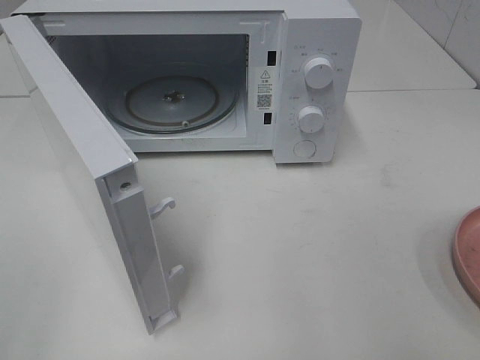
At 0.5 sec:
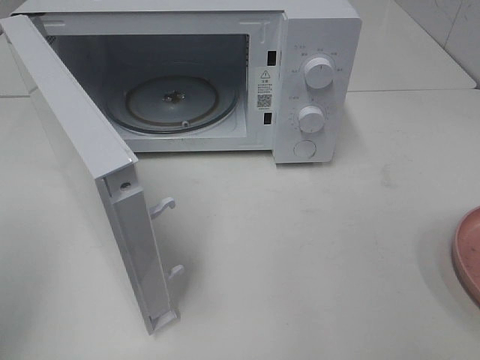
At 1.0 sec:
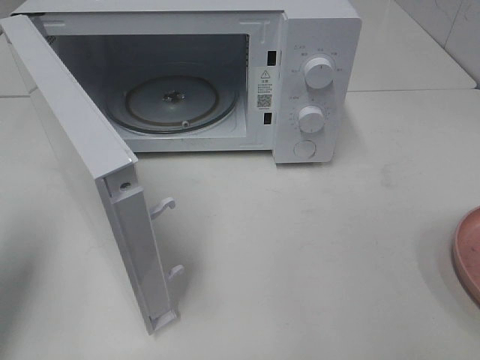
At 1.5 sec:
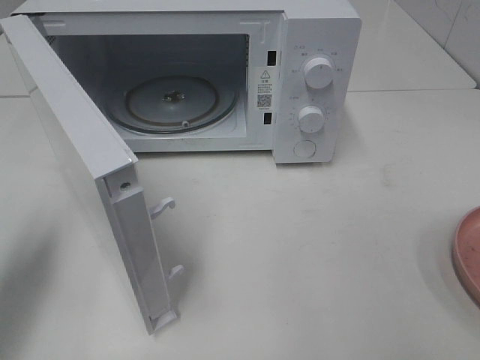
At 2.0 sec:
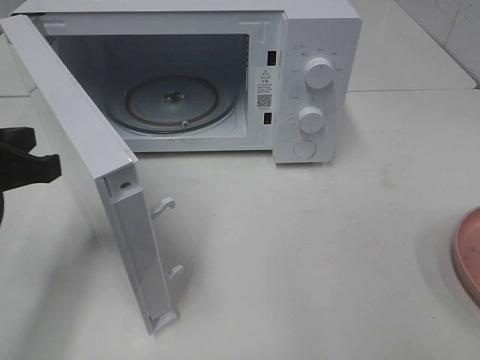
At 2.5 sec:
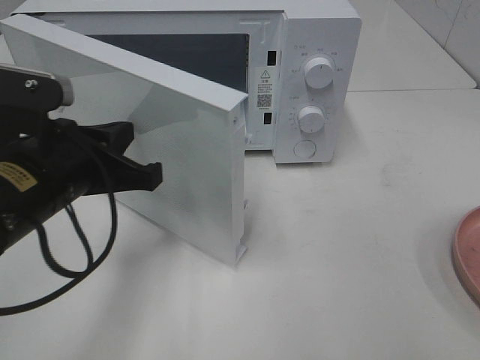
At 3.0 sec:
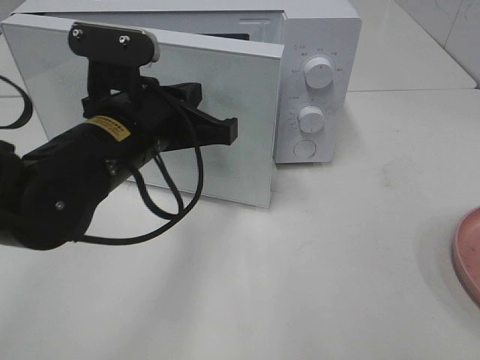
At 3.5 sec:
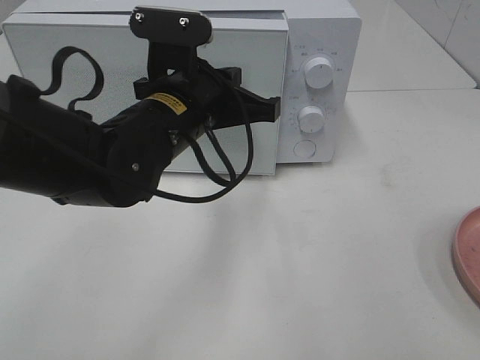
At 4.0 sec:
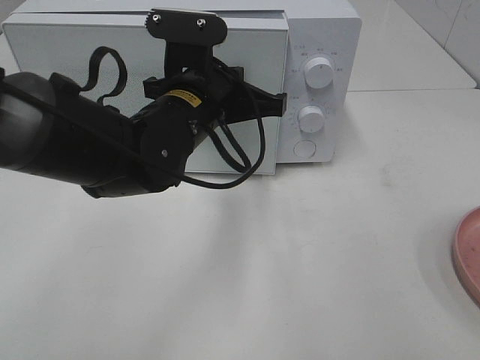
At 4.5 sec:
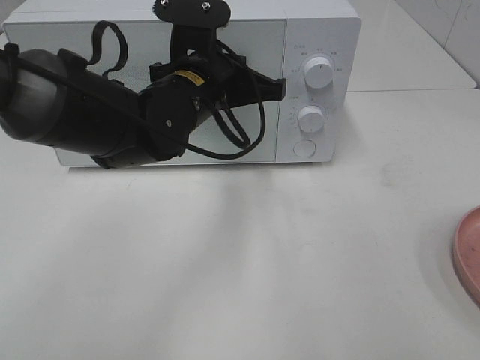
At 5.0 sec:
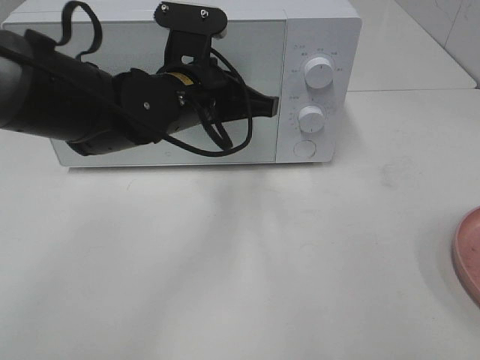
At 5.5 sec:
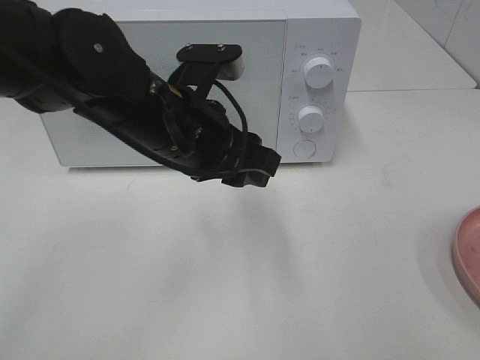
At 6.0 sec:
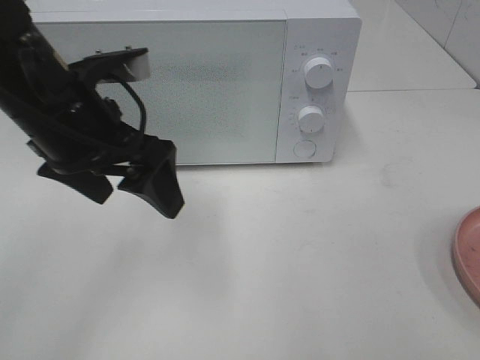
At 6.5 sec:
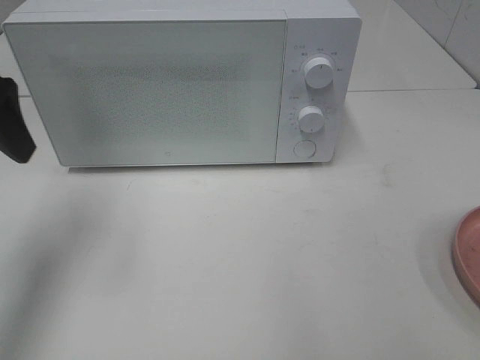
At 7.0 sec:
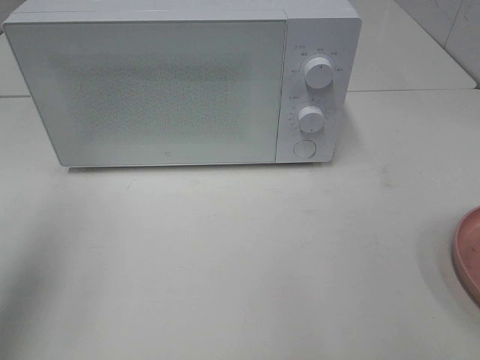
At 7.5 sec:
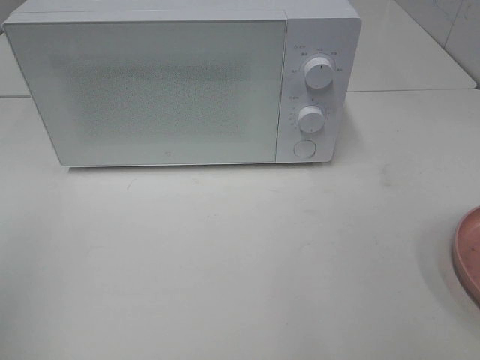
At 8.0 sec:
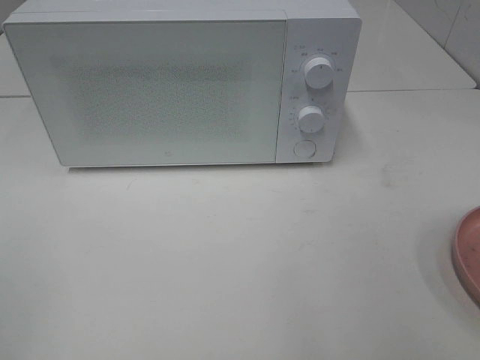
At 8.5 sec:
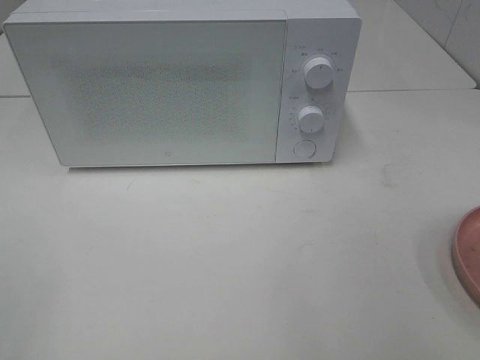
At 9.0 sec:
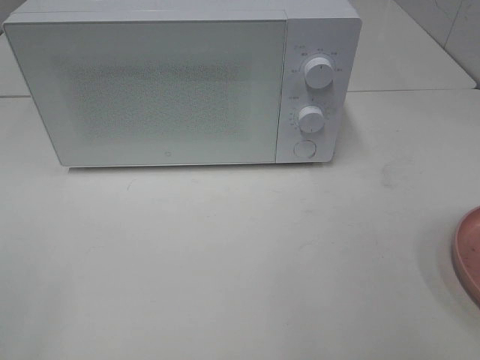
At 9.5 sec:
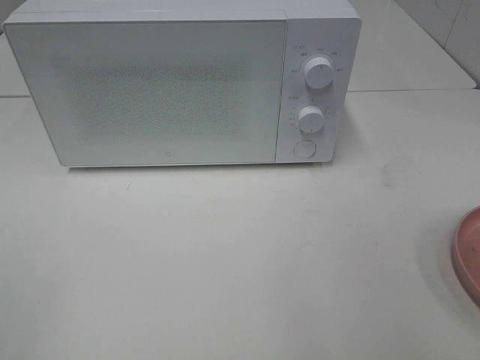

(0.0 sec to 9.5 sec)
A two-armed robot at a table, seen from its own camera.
Task of the whole recording: Heat the burger.
Step, 0.0 sec - 5.0 sec: Left hand: close the microwave door.
0.0 sec - 2.0 sec: The left gripper moves forward, downward and to the right, roughly 25 cm, and closes.
2.0 sec - 4.0 sec: The left gripper heads to the right and forward, covering approximately 20 cm.
4.0 sec - 5.5 sec: The left gripper opens up.
5.5 sec - 7.5 sec: The left gripper goes some 35 cm to the left, backward and upward, and opens.

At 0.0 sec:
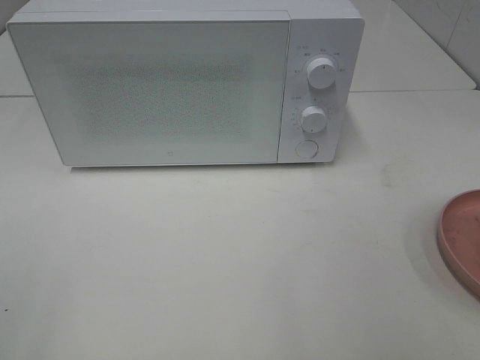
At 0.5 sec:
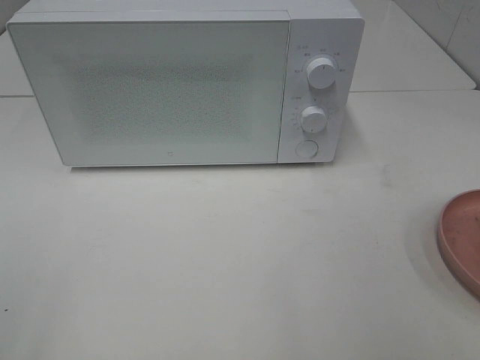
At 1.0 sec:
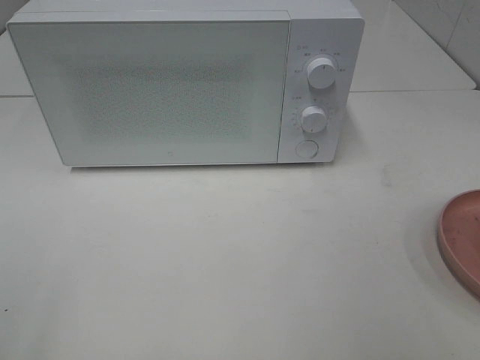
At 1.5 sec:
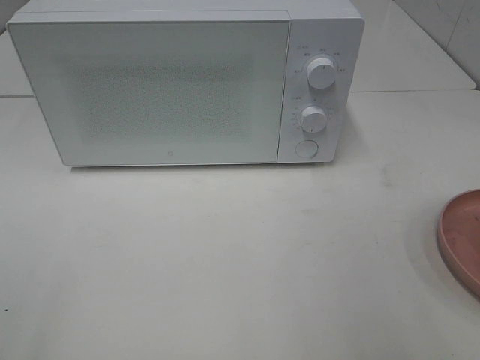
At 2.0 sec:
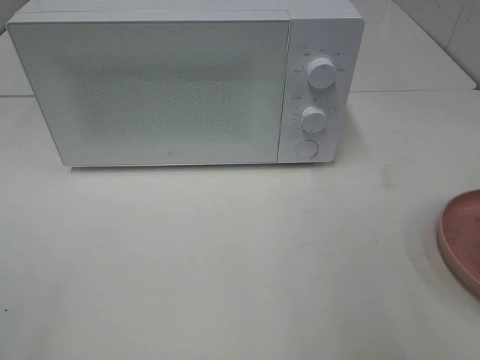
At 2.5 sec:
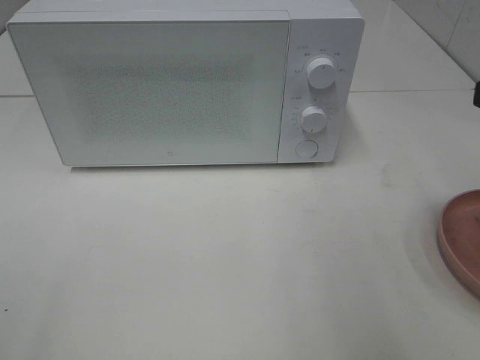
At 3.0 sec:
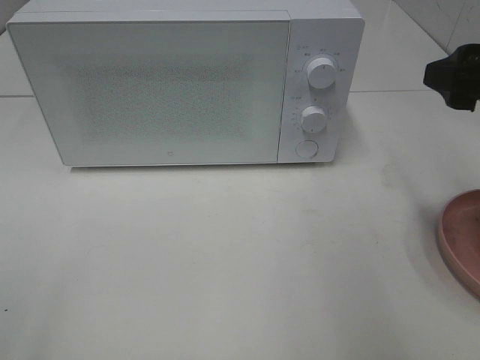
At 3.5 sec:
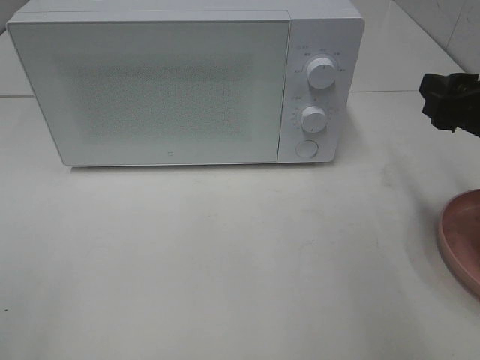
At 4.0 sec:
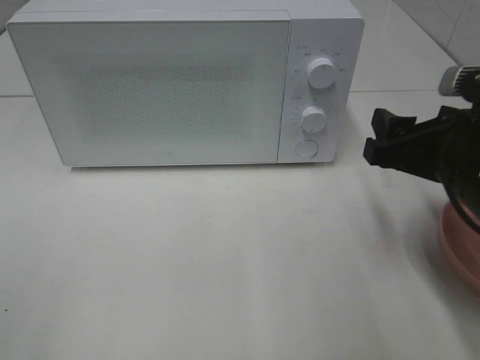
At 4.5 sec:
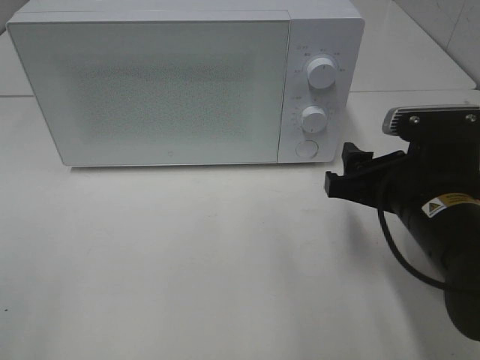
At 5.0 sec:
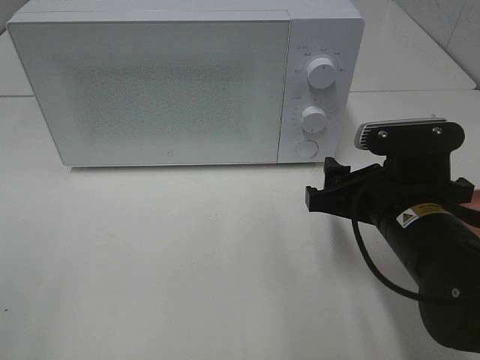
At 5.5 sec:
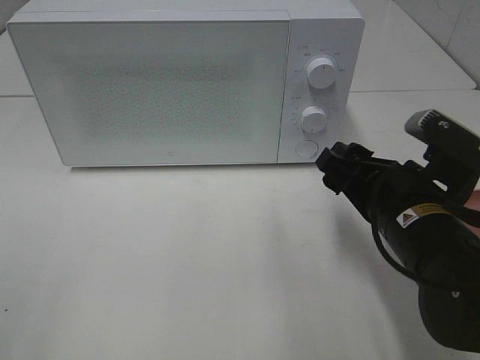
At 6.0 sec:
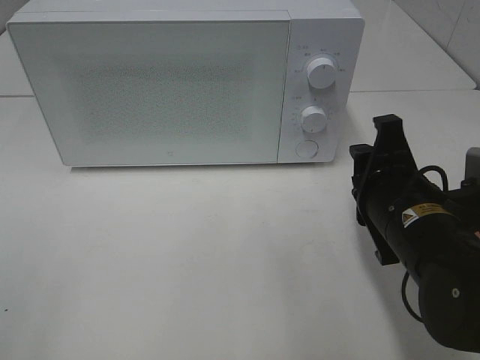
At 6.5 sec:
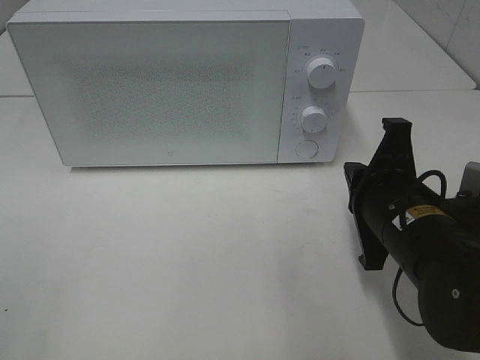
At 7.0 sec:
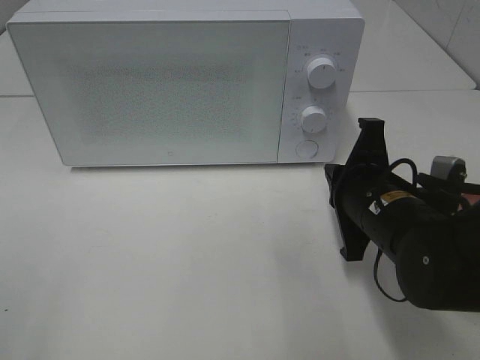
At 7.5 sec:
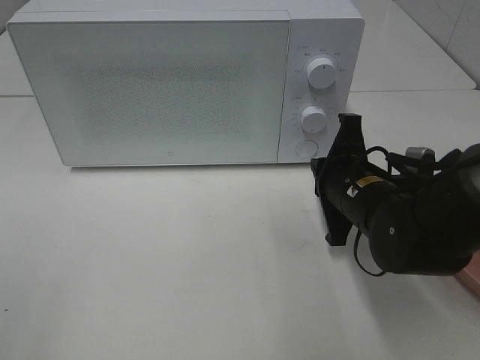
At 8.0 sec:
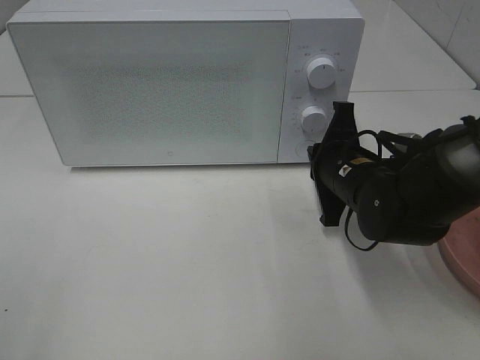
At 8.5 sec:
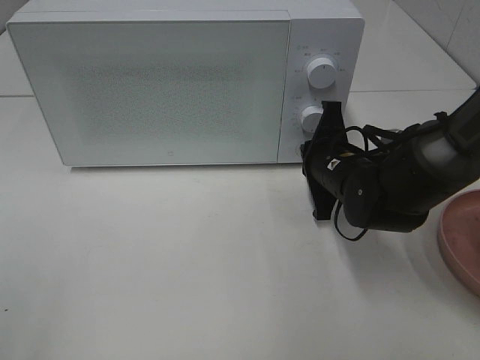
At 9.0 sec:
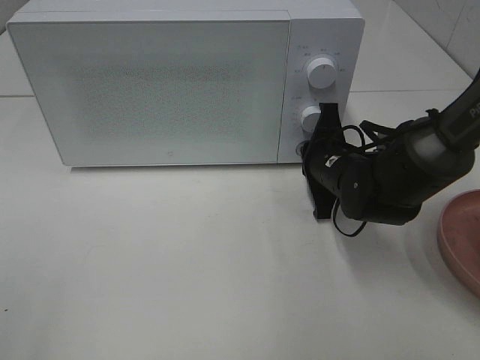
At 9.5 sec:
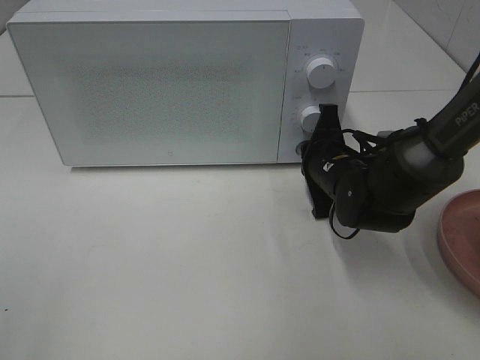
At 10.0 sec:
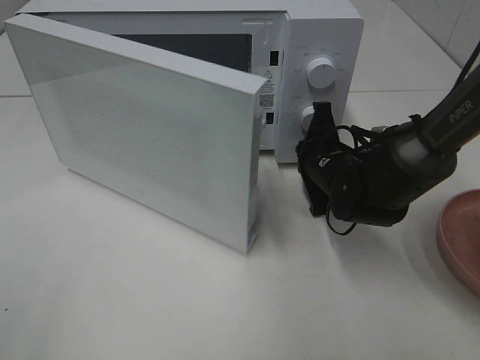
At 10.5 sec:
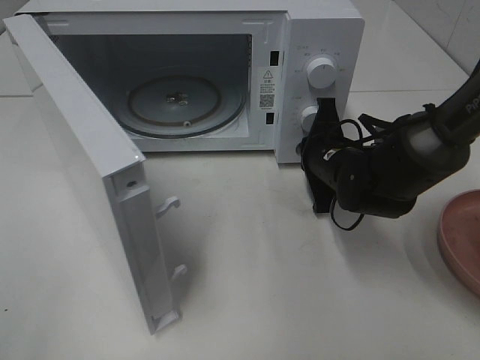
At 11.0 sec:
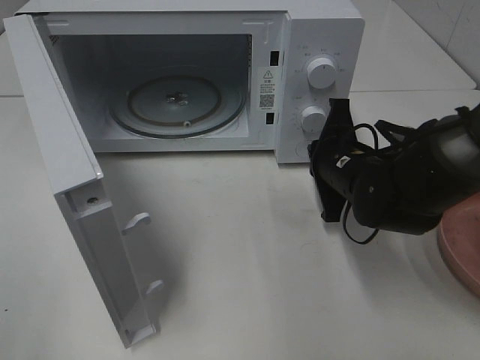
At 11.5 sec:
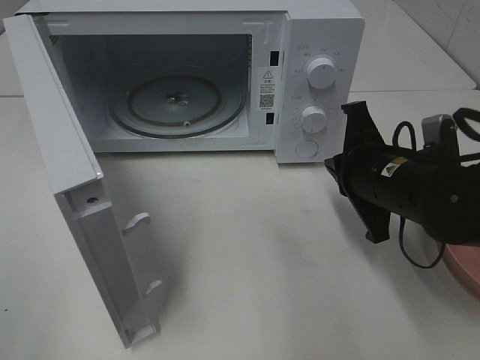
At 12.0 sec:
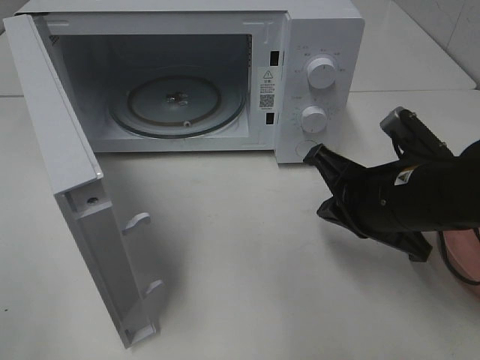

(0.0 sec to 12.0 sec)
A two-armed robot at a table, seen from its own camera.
Task of the whole recording: Heat the burger.
Step, 0.0 sec - 11.0 sec: Right hand: press the switch.
2.0 sec - 4.0 sec: The right gripper is displaced downward, forward and to the left by about 15 cm.
4.0 sec - 6.0 sec: The right gripper moves to the left, about 5 cm, and closes.
6.0 sec - 8.0 sec: The right gripper goes some 10 cm forward, and closes up.
8.0 sec - 10.0 sec: The right gripper shifts by some 5 cm.
10.0 sec - 12.0 sec: The right gripper is displaced backward and upward by roughly 15 cm.

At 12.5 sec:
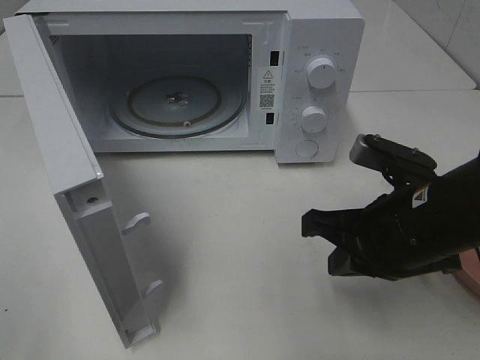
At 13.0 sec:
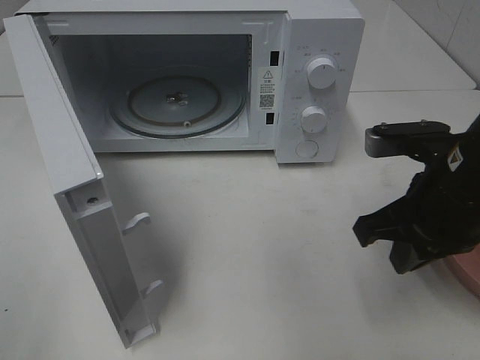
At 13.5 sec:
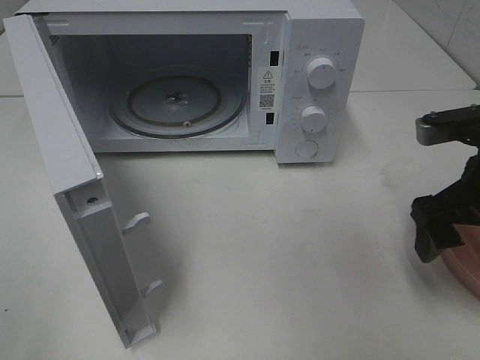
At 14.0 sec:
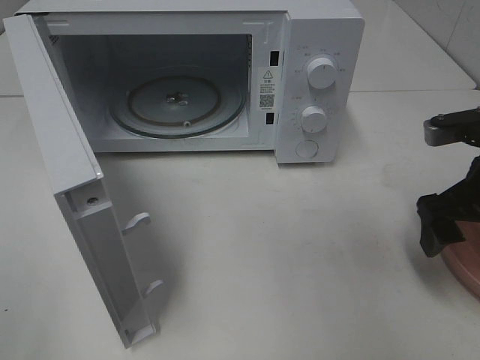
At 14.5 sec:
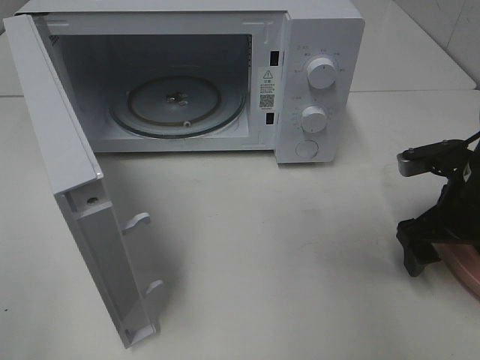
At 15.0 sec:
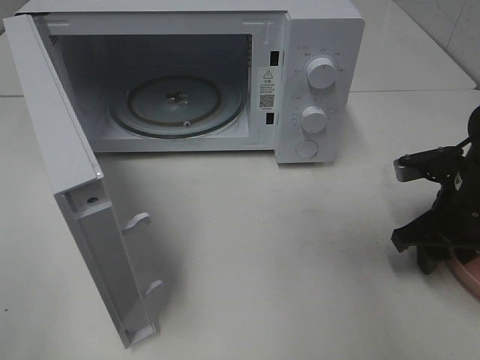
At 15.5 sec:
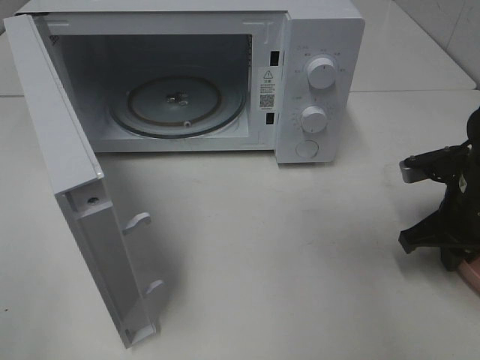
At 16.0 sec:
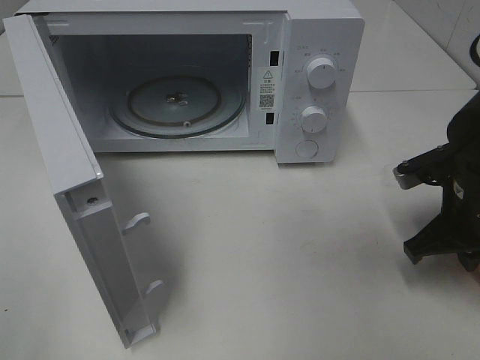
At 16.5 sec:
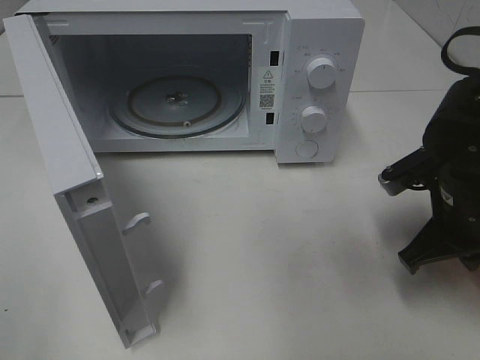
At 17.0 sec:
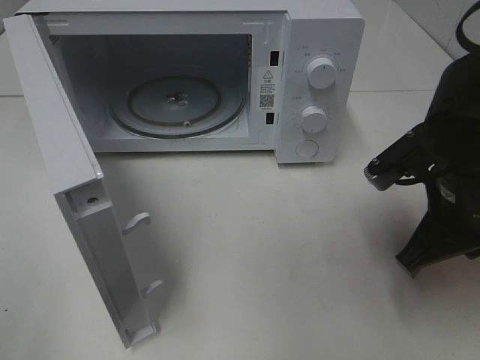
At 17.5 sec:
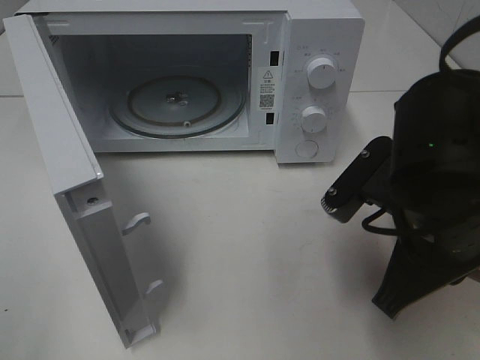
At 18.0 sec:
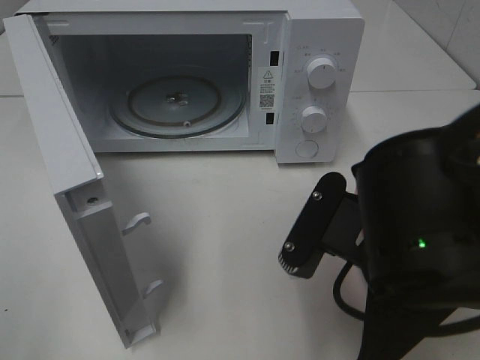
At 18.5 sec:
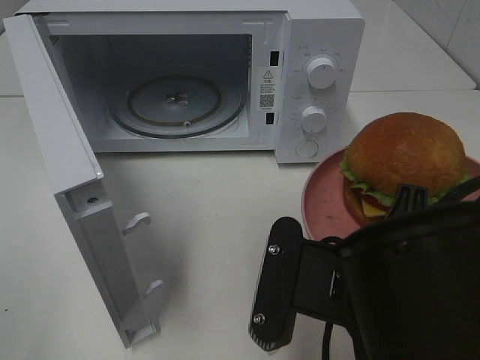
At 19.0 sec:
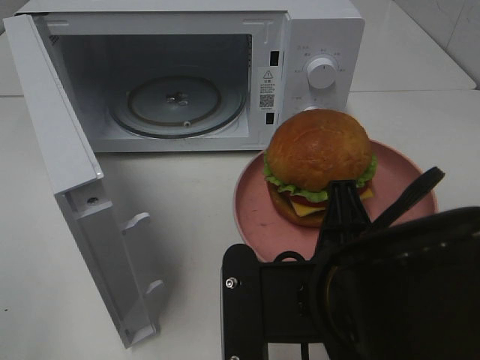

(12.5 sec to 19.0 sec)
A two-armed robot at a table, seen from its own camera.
Task of the whole recording: Heat the burger.
Step, 12.5 sec - 16.0 sec: Right hand: grab the plate with the hamburger.
12.5 sec - 14.5 sec: The right gripper goes about 10 cm to the right and forward, and opens up.
14.5 sec - 17.0 sec: The right gripper shifts roughly 5 cm to the left, and closes up.
17.0 sec - 19.0 sec: The right gripper shifts some 15 cm to the left and backward.
